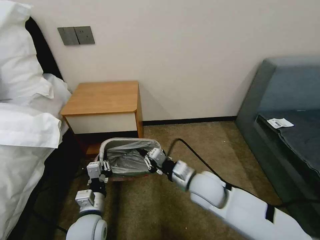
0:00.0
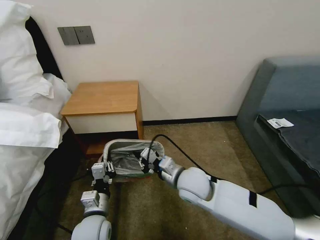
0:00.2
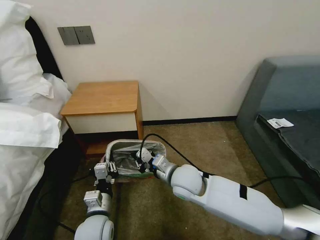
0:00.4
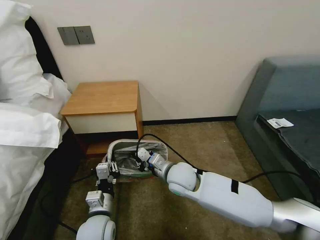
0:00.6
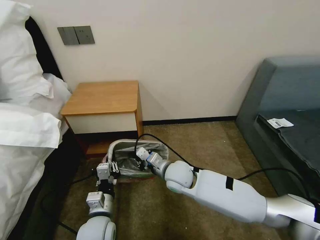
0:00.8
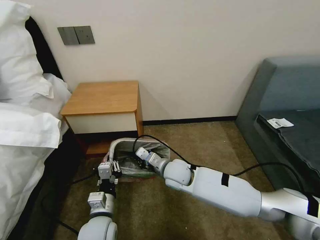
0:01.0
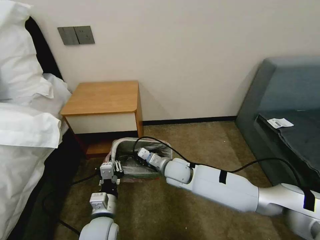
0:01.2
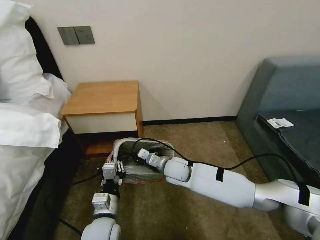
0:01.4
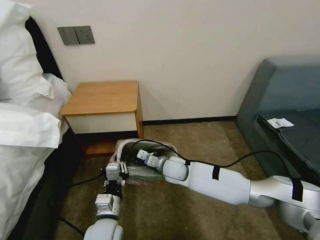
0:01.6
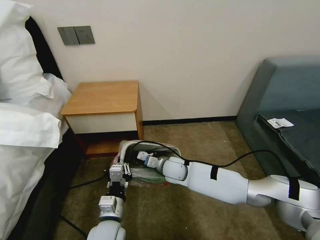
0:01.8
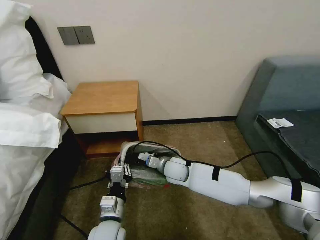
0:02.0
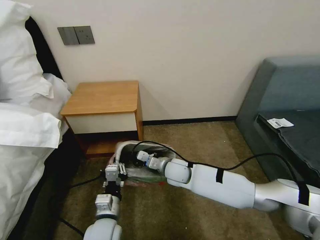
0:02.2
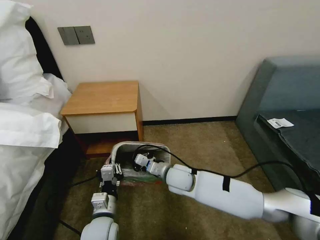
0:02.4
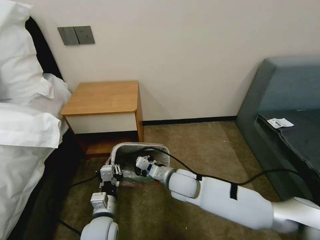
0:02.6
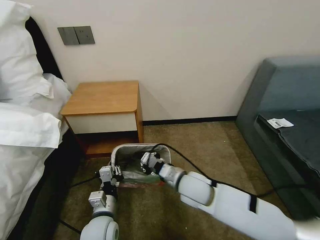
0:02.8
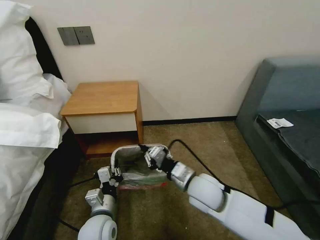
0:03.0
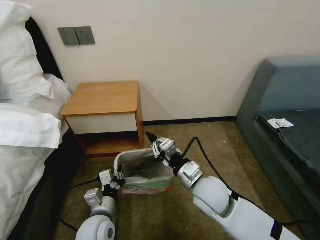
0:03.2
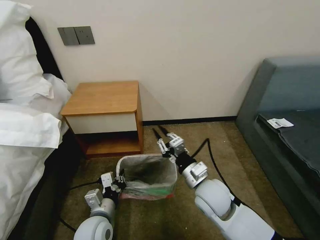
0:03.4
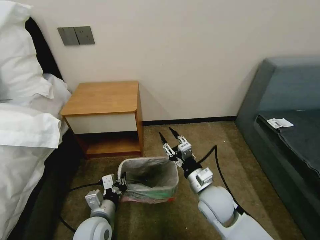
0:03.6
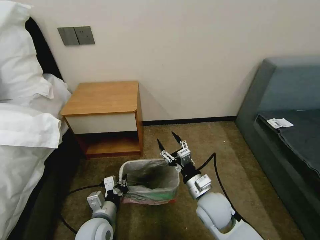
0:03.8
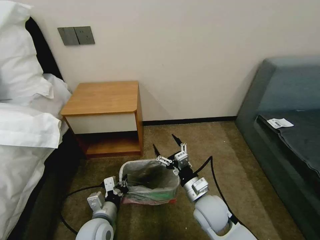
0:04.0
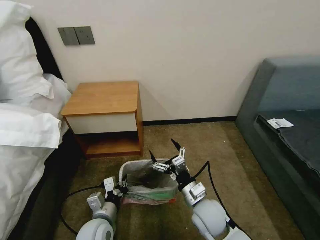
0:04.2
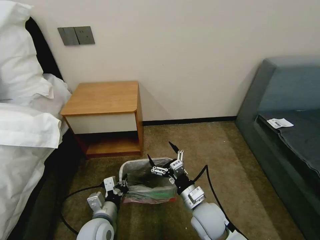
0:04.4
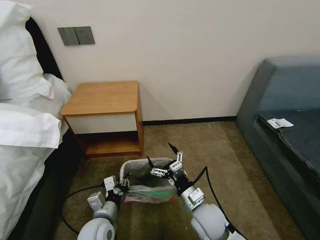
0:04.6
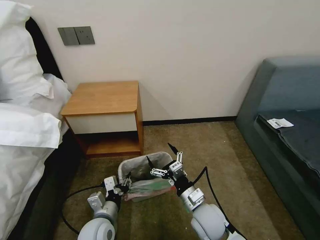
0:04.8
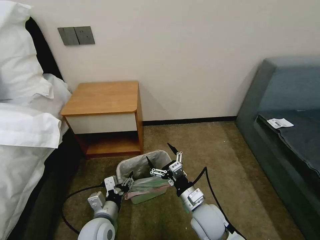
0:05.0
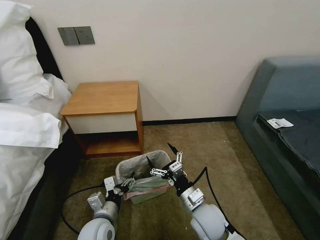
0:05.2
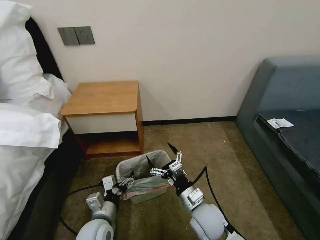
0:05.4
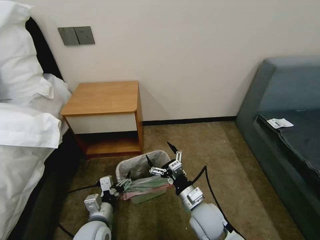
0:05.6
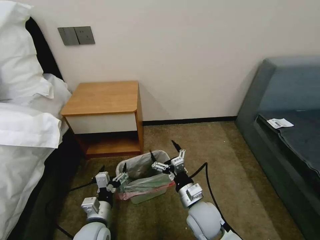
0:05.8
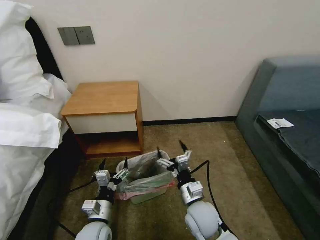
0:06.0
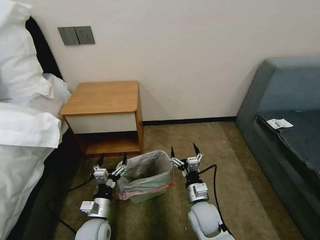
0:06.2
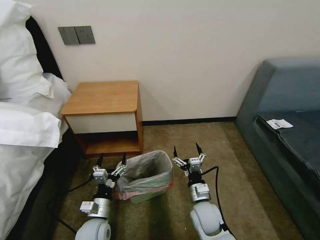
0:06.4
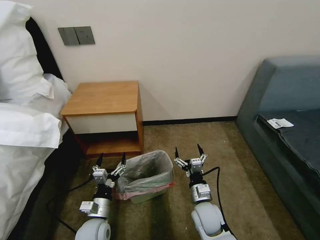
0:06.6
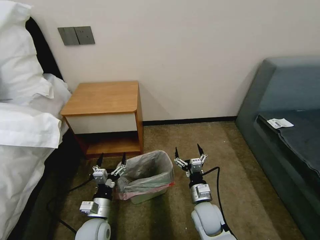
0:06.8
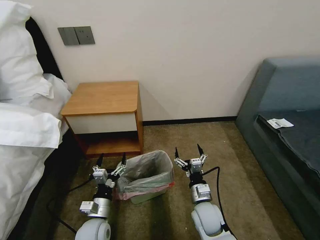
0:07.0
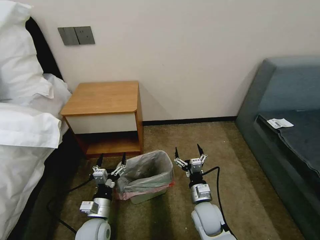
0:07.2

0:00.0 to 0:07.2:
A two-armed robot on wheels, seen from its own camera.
Task of the whole recording: Pick up the garbage bag from the table and place it over the trash can.
0:00.0 to 0:01.4: The right gripper travels forward, downward and to the left by roughly 15 cm.
0:01.4 to 0:02.8: The right gripper moves backward, approximately 10 cm.
0:02.8 to 0:04.4: The right gripper heads backward and downward, covering approximately 10 cm, and opens.
0:04.4 to 0:05.8: The left gripper opens.
0:05.8 to 0:07.2: The right gripper shifts roughly 5 cm downward.

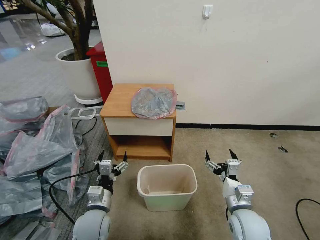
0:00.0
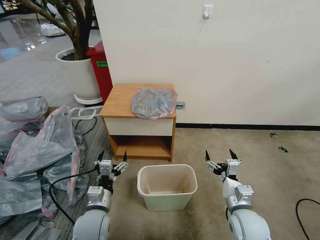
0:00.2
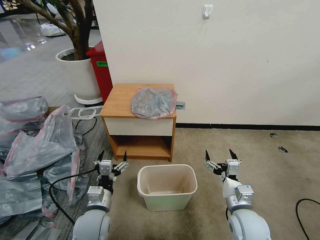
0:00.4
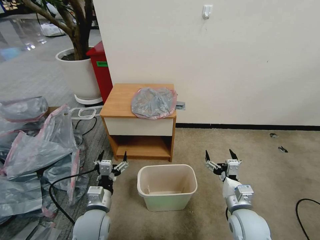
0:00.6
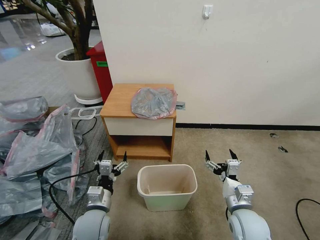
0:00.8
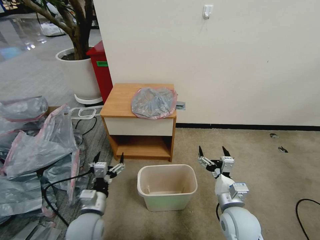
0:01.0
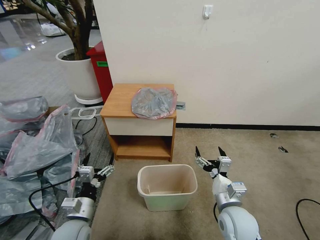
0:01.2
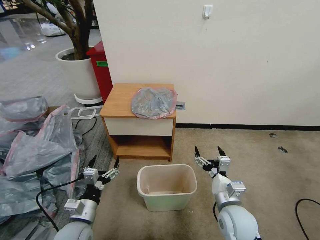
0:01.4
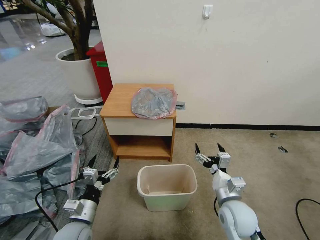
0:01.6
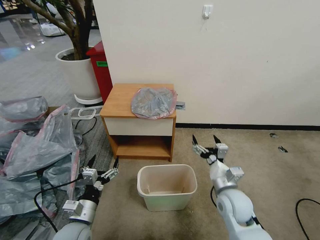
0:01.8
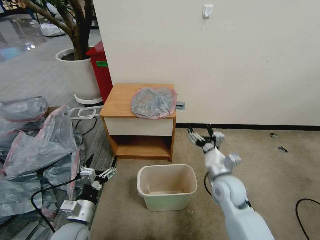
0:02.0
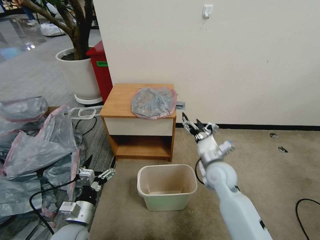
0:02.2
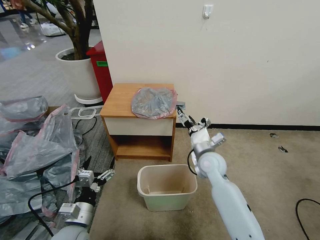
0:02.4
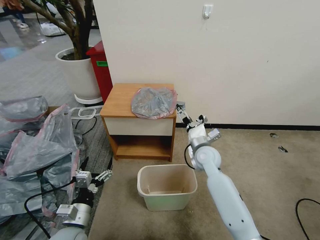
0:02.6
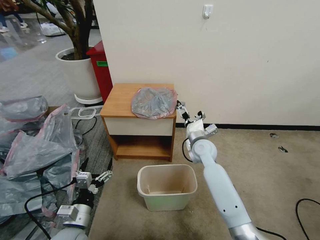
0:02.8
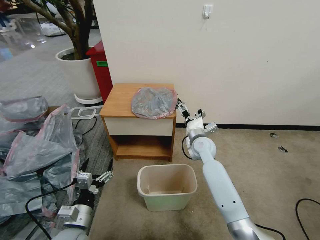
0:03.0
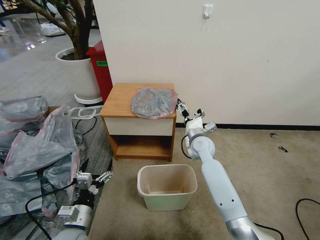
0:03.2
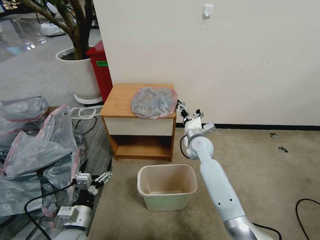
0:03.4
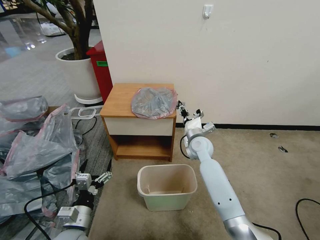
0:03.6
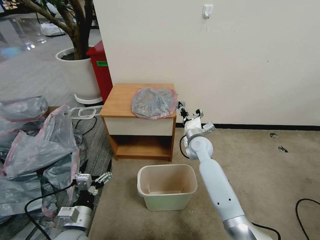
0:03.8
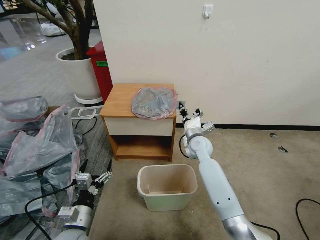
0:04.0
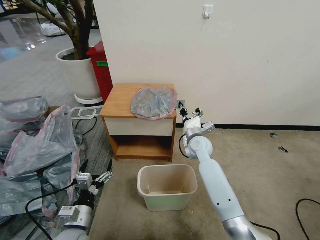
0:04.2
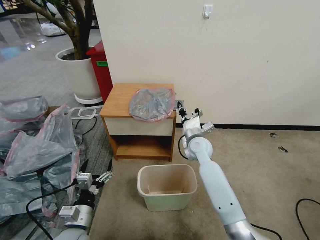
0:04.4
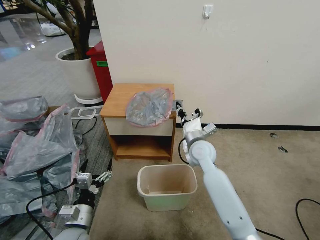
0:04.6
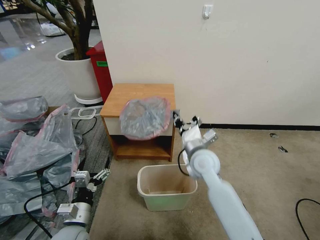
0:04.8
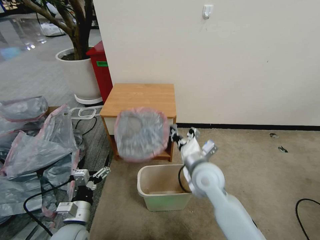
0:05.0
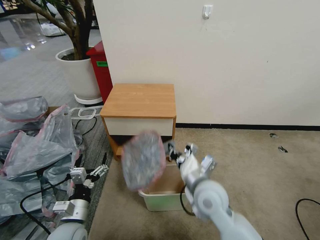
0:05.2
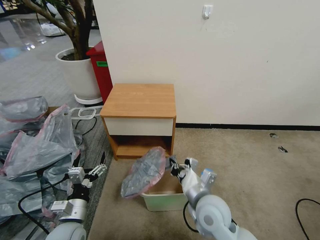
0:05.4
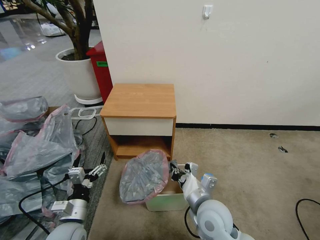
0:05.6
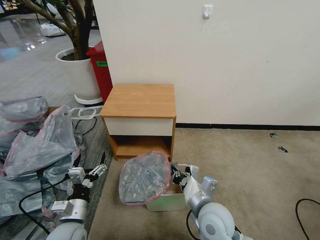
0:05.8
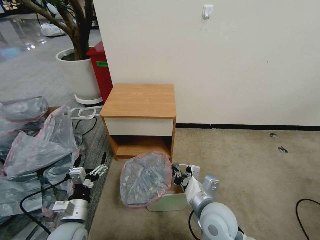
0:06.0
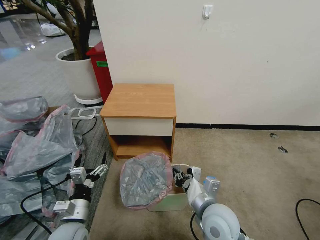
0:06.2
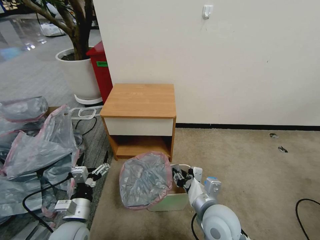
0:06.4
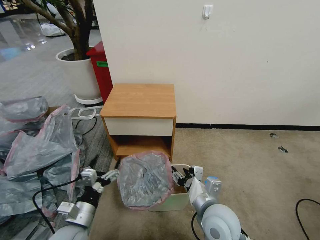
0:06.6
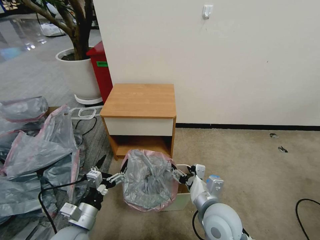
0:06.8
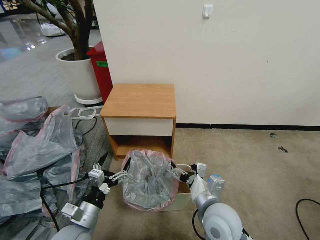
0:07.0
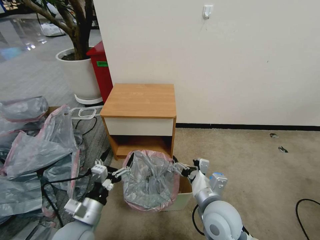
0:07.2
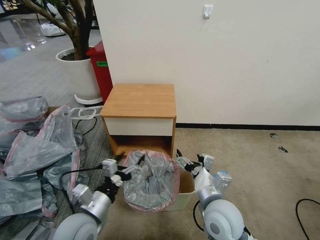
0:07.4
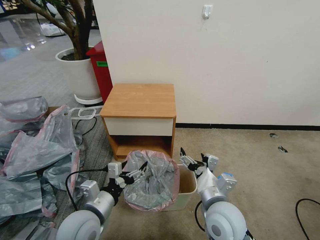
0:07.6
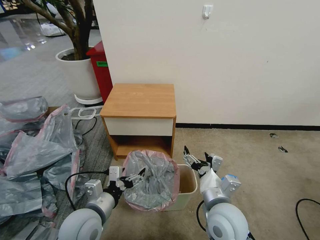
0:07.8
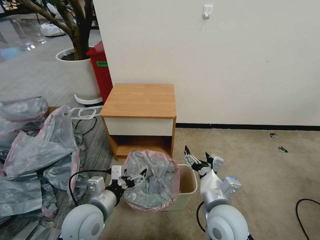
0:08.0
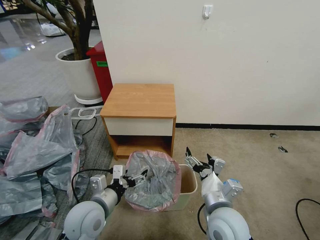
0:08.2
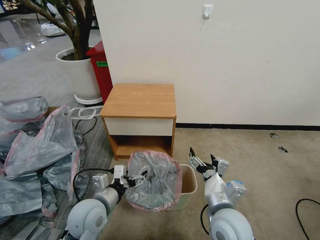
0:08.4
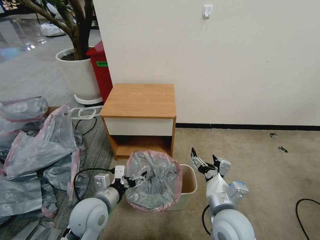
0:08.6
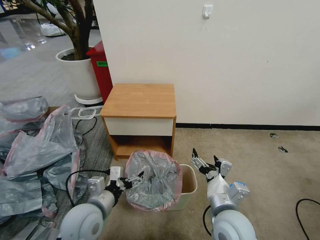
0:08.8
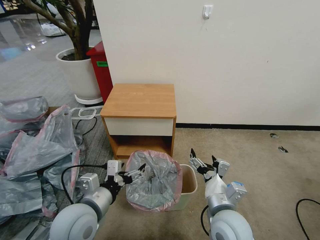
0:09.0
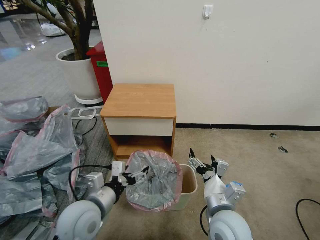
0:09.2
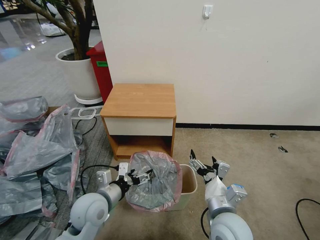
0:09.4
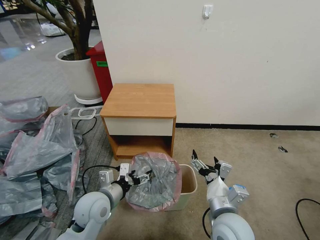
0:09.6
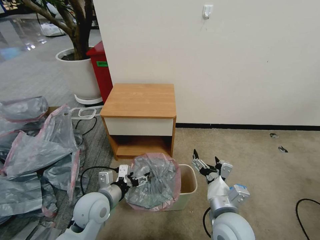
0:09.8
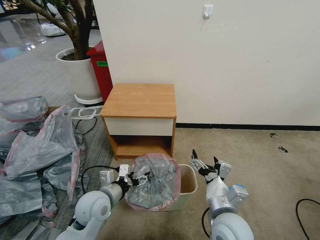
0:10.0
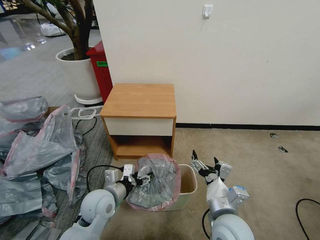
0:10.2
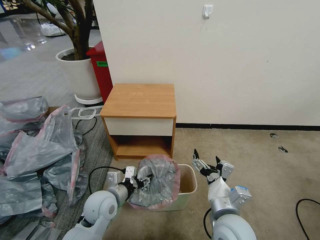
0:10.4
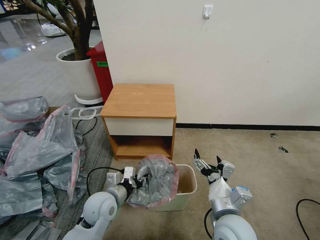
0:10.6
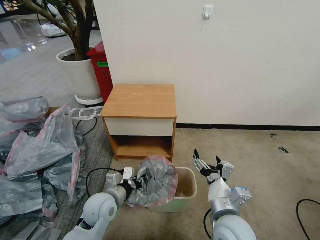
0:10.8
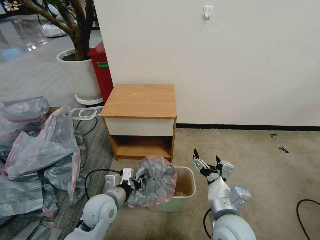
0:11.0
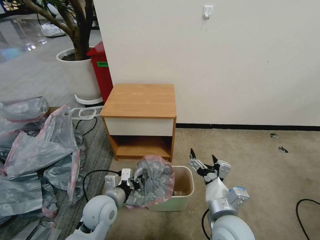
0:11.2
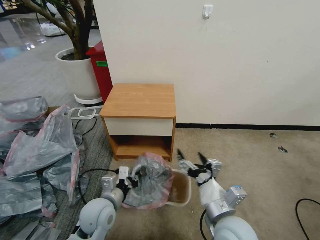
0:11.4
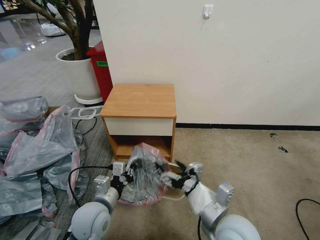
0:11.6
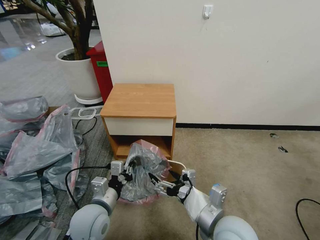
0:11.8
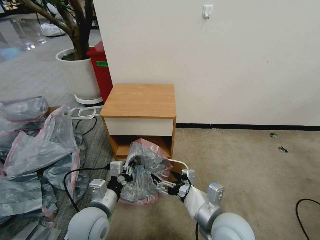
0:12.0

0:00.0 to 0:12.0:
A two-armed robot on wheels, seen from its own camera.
Task of the whole recording: Pick up the garbage bag from the table and place it over the trash can.
0:01.6 to 0:03.0: The right gripper is displaced forward by approximately 25 cm.
0:03.0 to 0:04.4: The right gripper closes up.
0:04.4 to 0:06.0: The right gripper travels backward by approximately 25 cm.
0:06.0 to 0:07.6: The left gripper shifts roughly 10 cm upward and to the right. Meanwhile the right gripper opens its fingers.
0:07.6 to 0:09.0: The grippers move only a little.
0:09.0 to 0:10.4: The left gripper moves downward and forward, some 10 cm, and closes its fingers.
0:10.4 to 0:12.0: The left gripper is displaced backward by approximately 5 cm, and closes up.

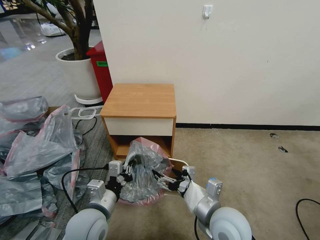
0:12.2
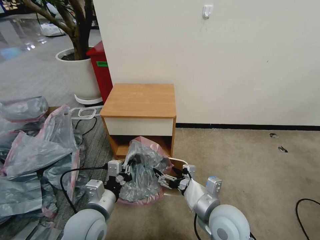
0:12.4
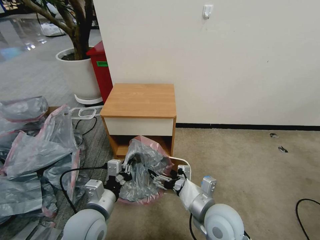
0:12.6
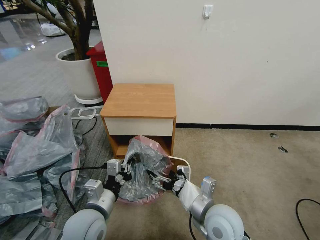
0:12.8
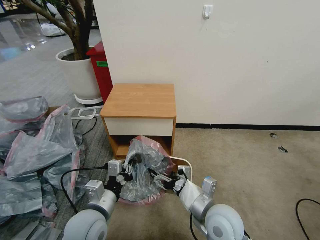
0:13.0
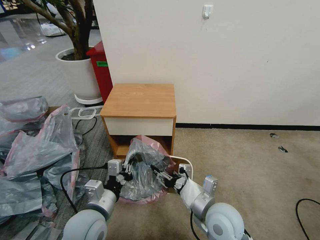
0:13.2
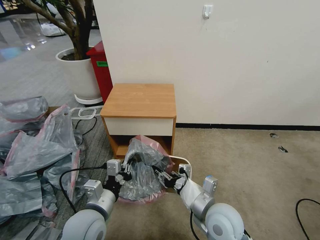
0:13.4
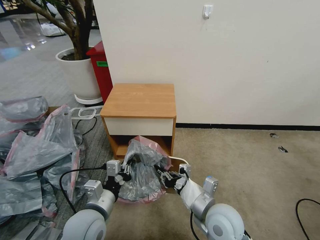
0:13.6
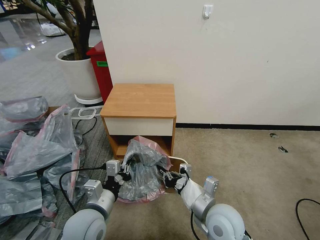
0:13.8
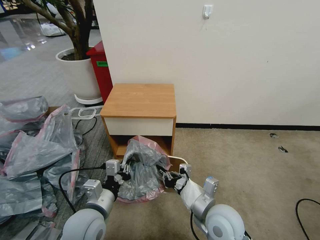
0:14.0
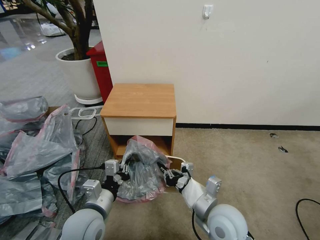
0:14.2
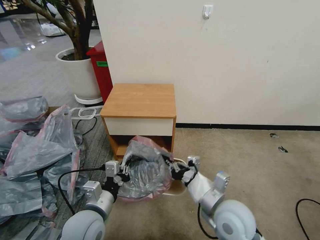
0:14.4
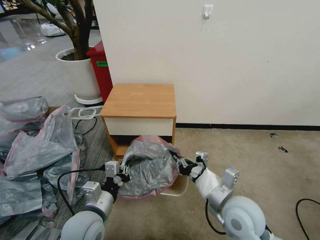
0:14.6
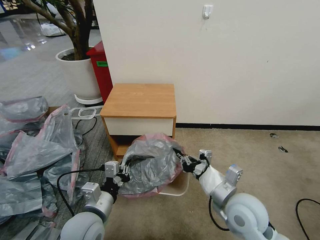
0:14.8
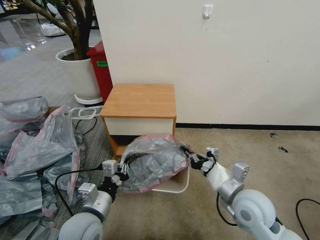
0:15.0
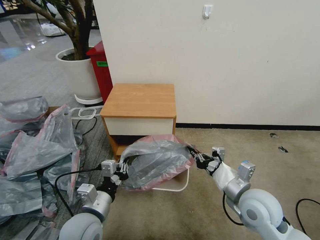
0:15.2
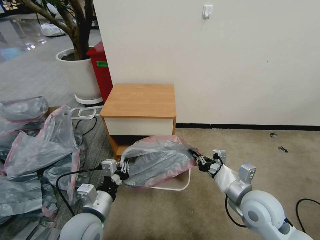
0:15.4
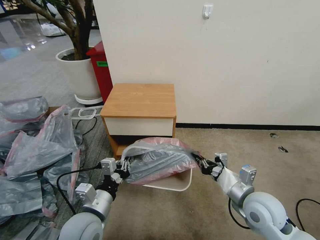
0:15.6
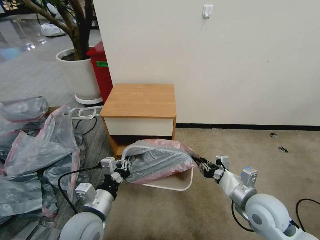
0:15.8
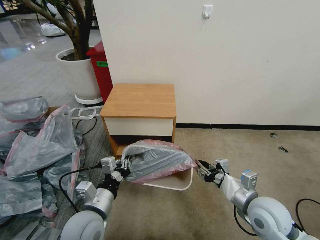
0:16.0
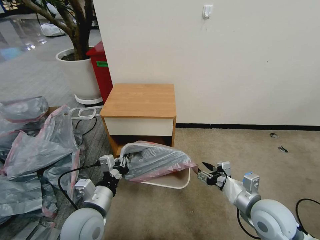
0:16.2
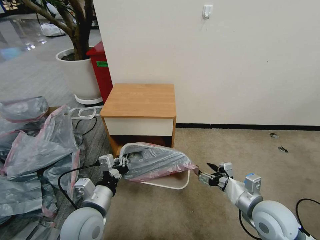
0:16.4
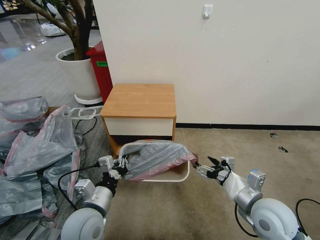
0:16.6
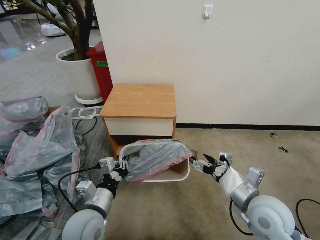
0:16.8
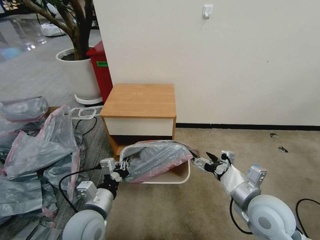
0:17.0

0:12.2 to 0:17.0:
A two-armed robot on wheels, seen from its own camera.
Task of the whole recording: Pick up the garbage bag from the table and place it over the trash can.
0:12.2 to 0:13.8: The right gripper closes up.
0:13.8 to 0:15.4: The right gripper travels to the right by roughly 10 cm.
0:15.4 to 0:17.0: The right gripper opens.
